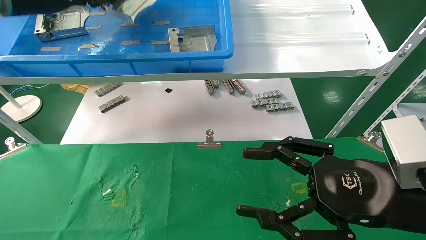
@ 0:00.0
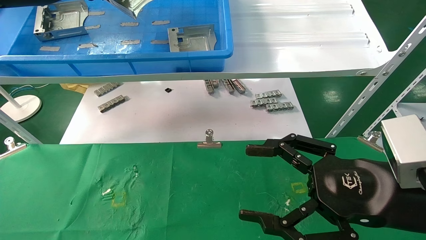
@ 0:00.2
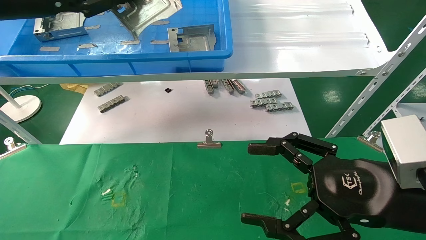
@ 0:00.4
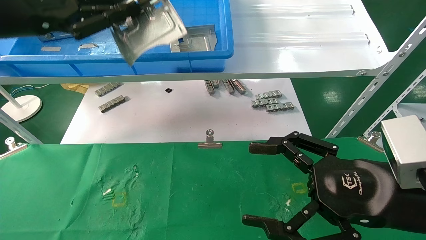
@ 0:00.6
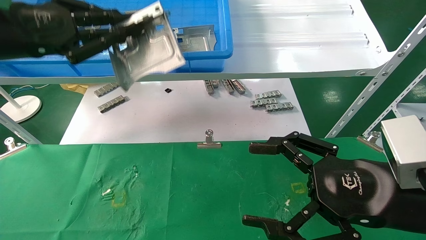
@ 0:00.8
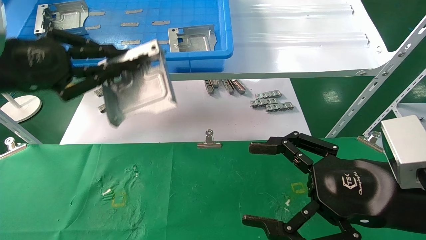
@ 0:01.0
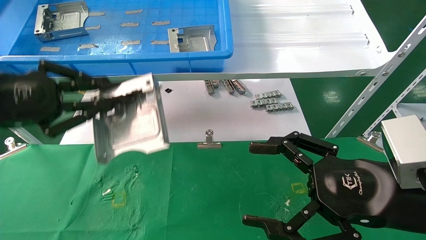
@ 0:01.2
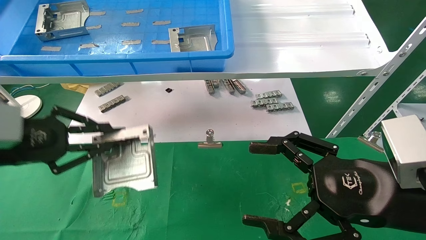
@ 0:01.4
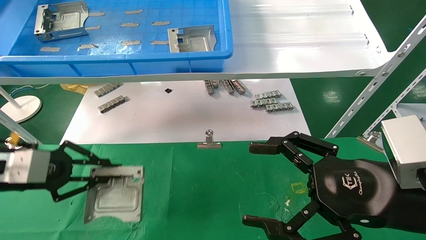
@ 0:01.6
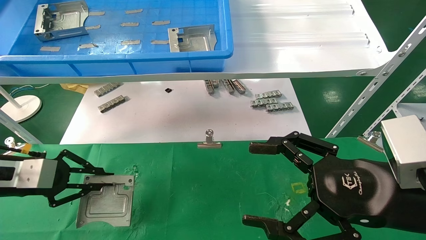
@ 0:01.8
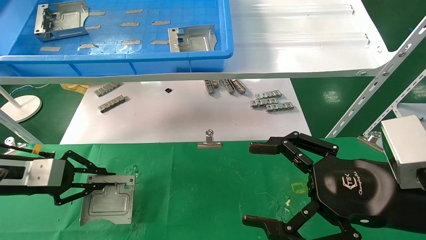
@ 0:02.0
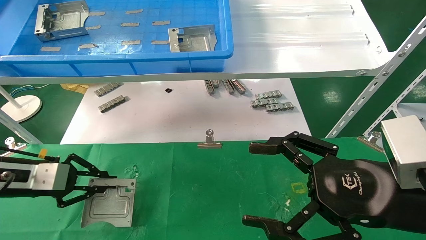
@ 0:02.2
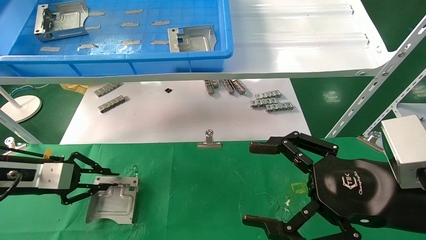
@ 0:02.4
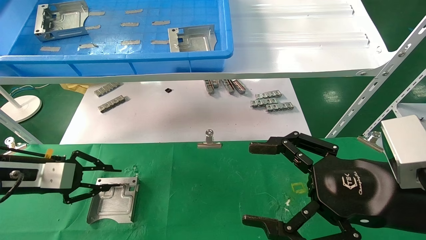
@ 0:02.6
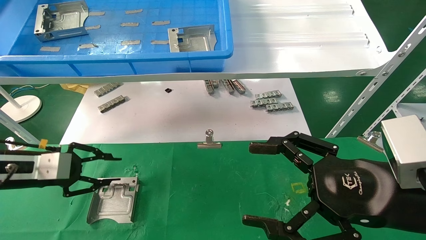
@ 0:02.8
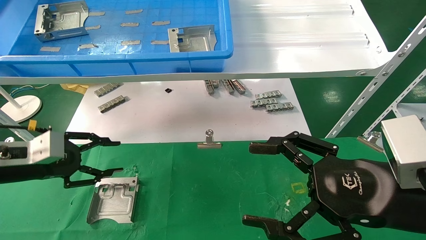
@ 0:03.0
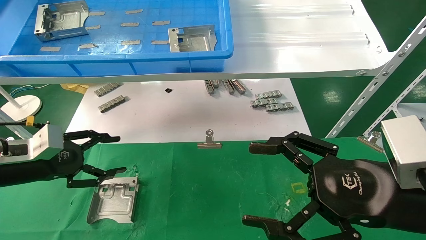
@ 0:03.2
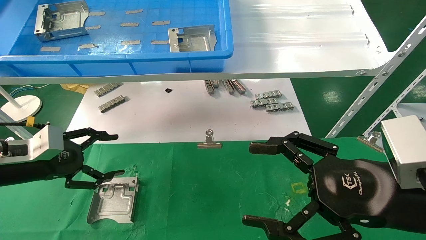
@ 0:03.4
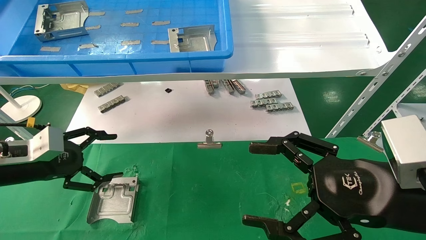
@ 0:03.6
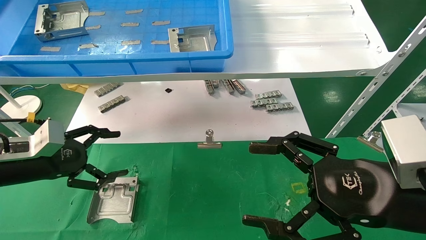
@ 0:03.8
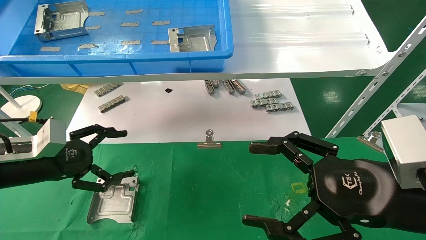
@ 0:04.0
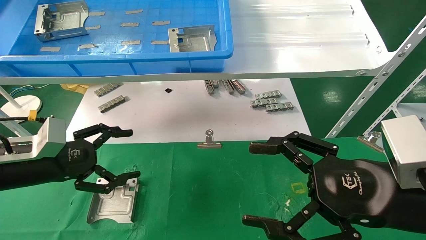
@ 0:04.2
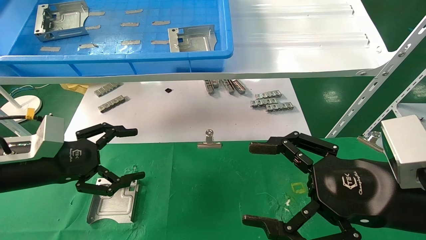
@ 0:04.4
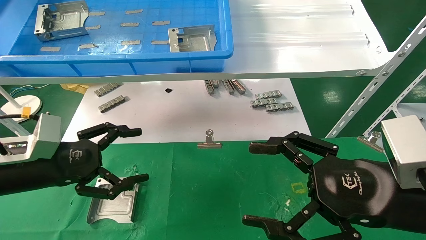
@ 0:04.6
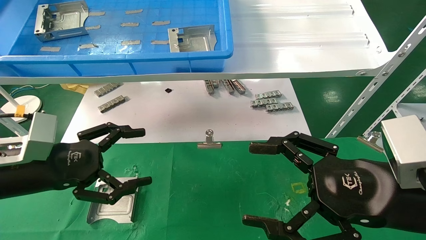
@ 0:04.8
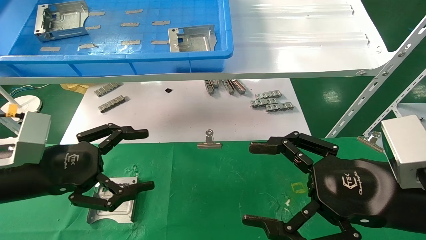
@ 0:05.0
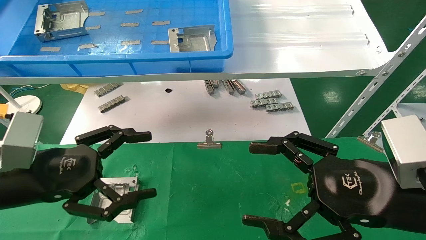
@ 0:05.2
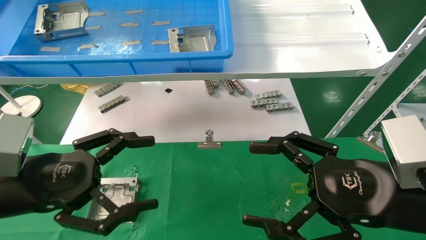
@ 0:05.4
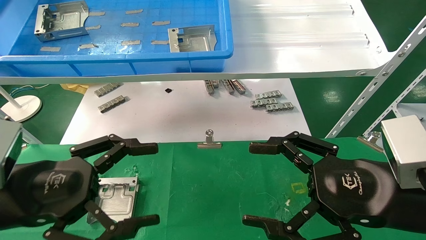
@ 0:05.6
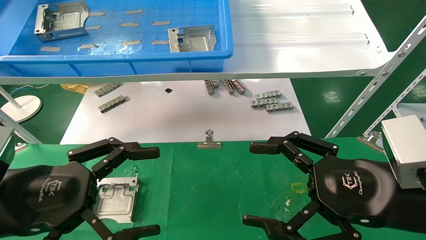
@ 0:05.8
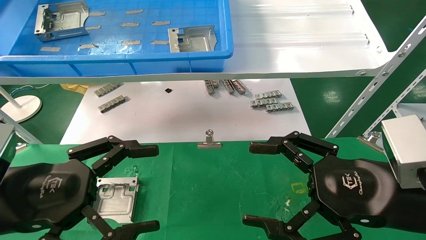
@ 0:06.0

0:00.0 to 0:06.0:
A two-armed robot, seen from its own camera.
Task of the whole recording: use the mechanical arm to pick up the parts and place them on the table.
Step, 0:00.2 to 0:03.0: Place the hard drive bracket into the box.
0:00.0 to 0:01.6: The left gripper is displaced downward by about 25 cm. The right gripper opens its fingers.
0:01.6 to 0:03.0: The left gripper changes place by roughly 5 cm, and opens its fingers.
0:03.0 to 0:04.4: The left gripper heads to the right, covering some 5 cm, and opens.
0:04.4 to 0:06.0: The left gripper travels backward and to the right by approximately 15 cm.
